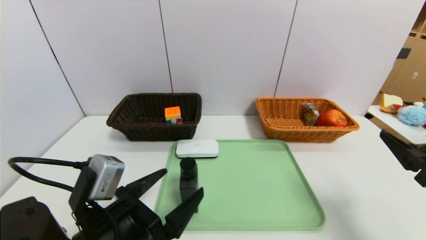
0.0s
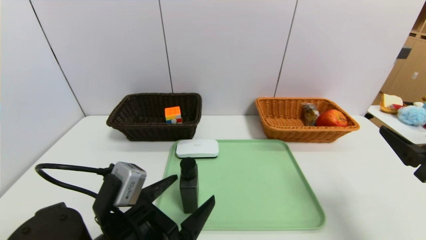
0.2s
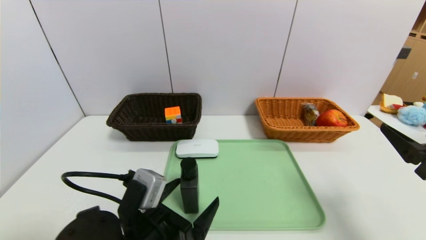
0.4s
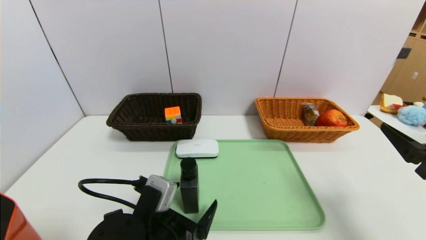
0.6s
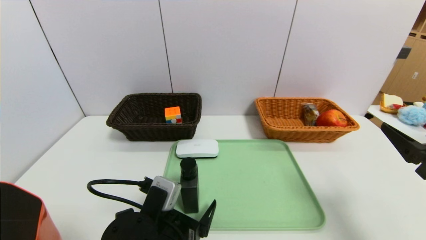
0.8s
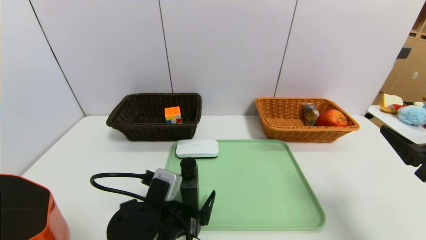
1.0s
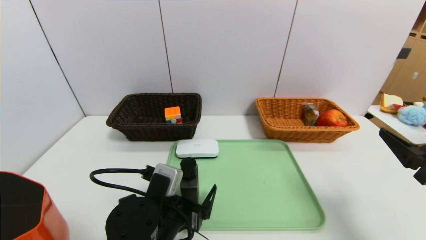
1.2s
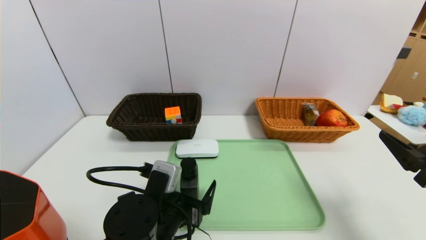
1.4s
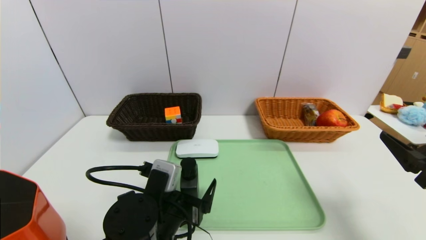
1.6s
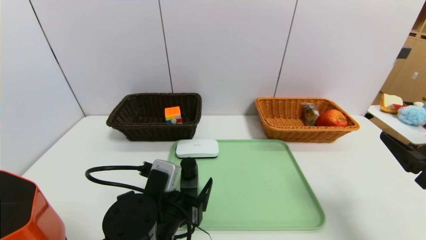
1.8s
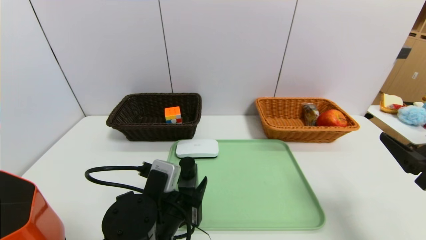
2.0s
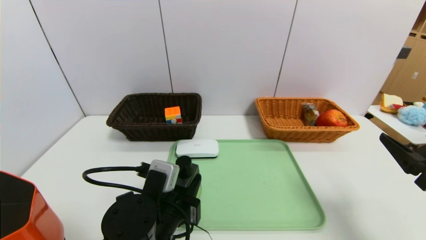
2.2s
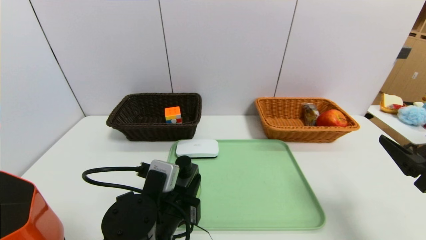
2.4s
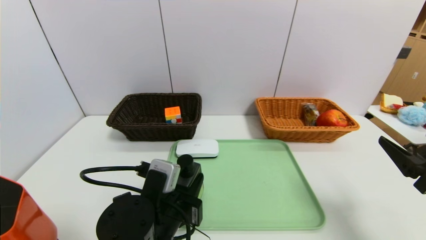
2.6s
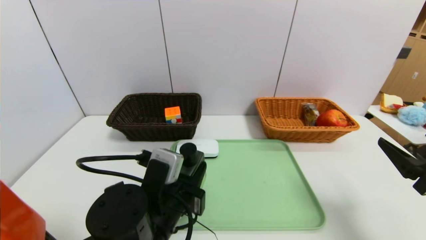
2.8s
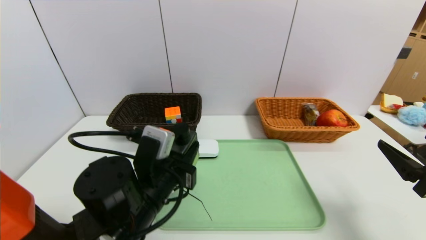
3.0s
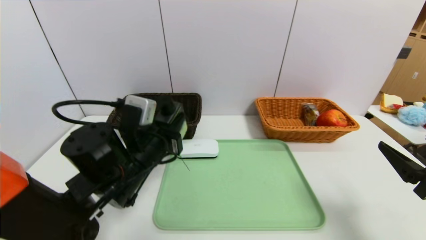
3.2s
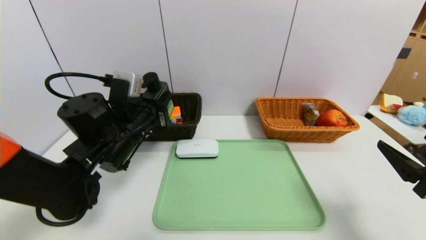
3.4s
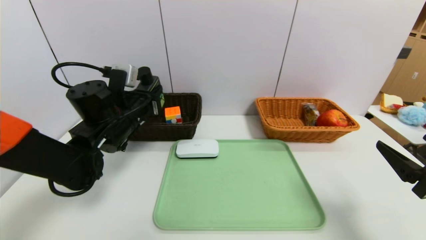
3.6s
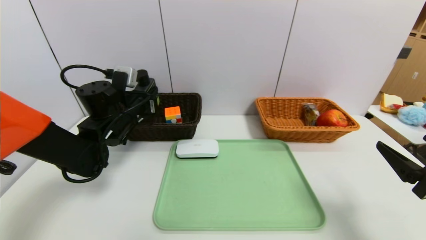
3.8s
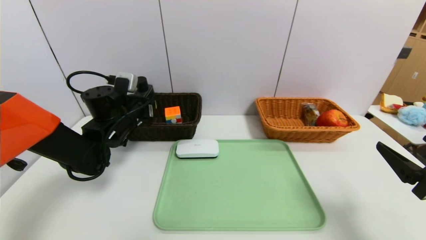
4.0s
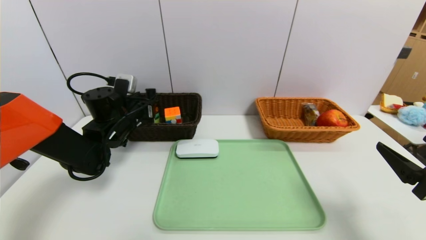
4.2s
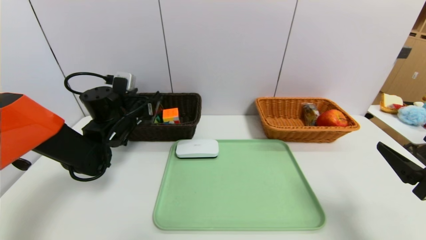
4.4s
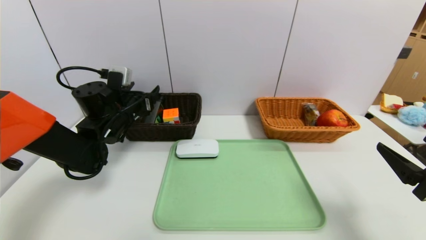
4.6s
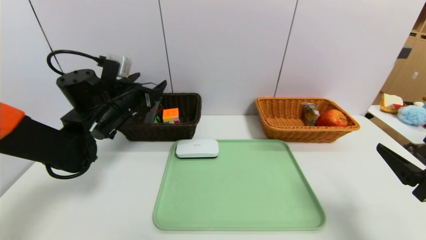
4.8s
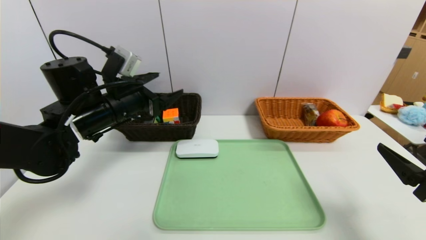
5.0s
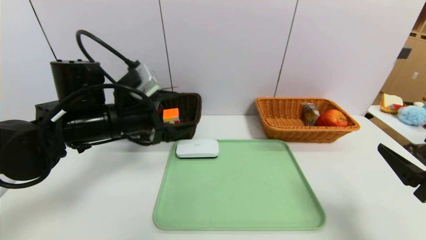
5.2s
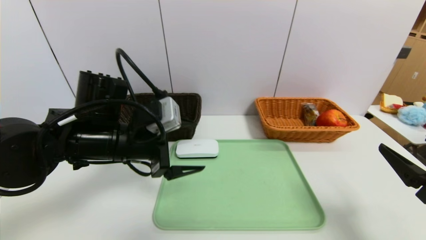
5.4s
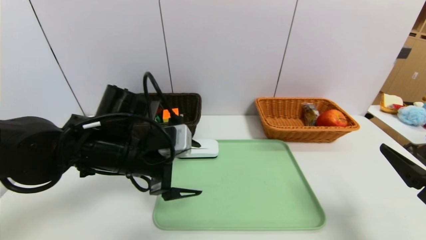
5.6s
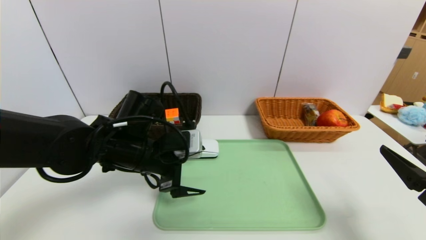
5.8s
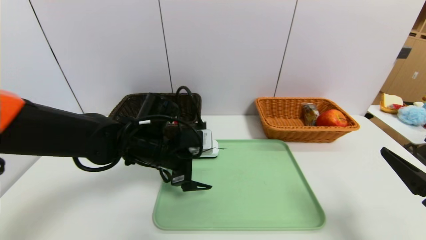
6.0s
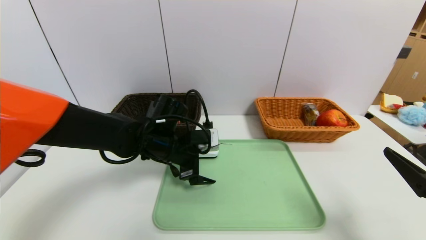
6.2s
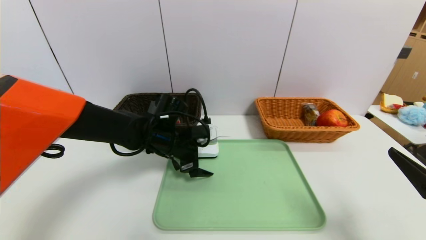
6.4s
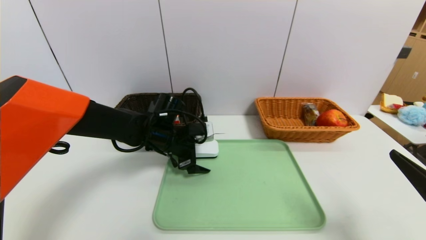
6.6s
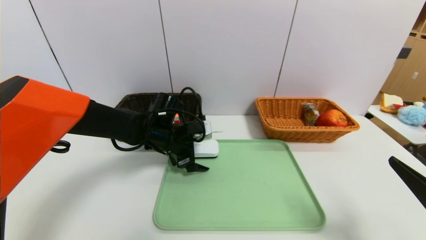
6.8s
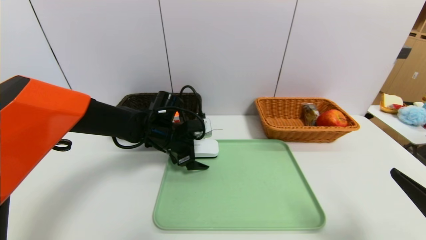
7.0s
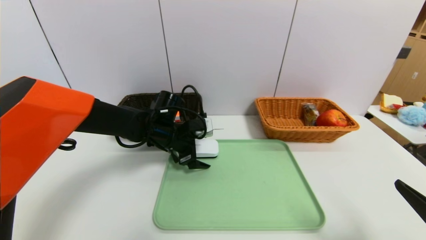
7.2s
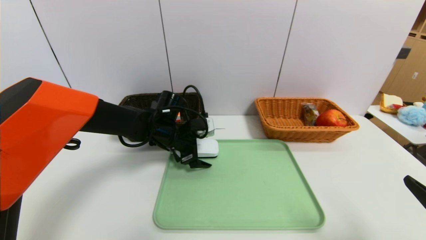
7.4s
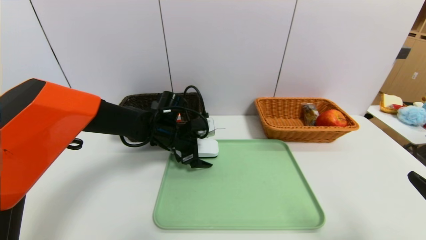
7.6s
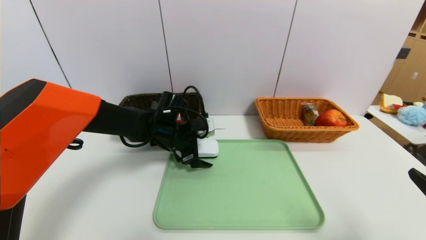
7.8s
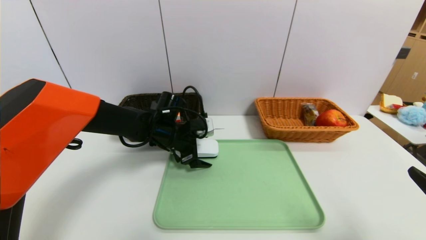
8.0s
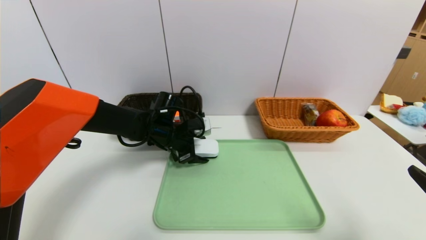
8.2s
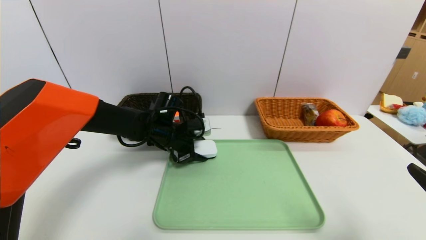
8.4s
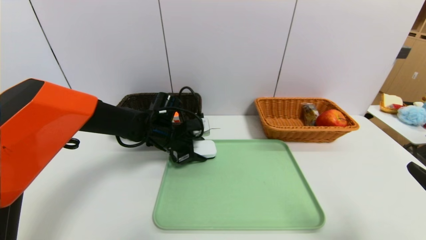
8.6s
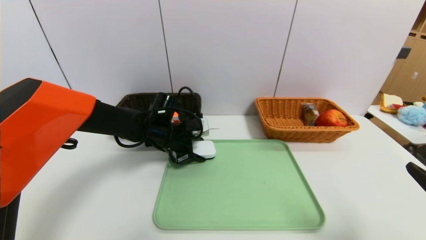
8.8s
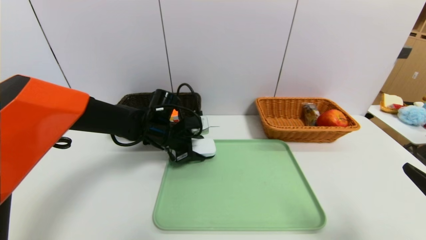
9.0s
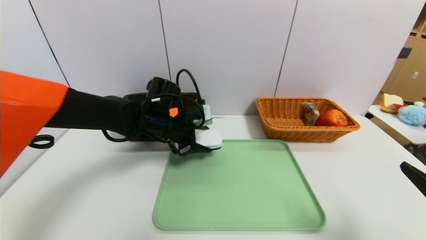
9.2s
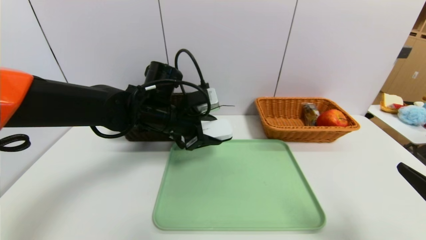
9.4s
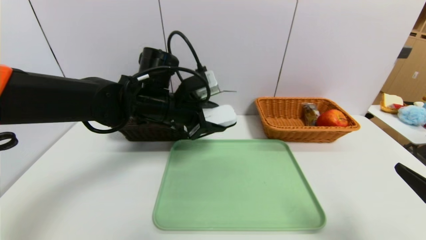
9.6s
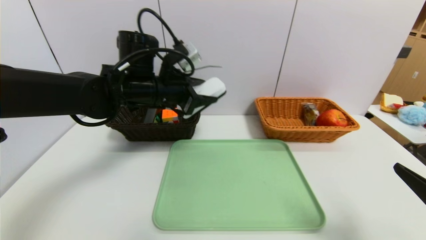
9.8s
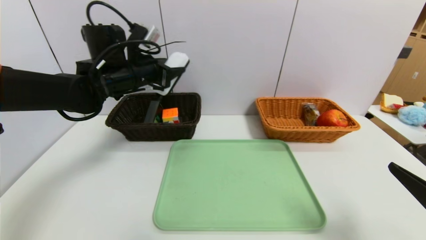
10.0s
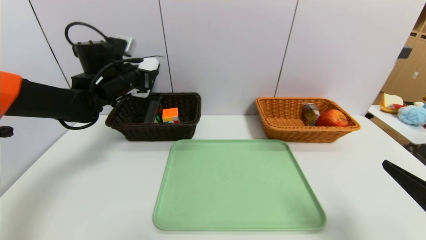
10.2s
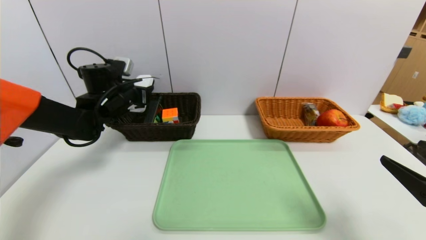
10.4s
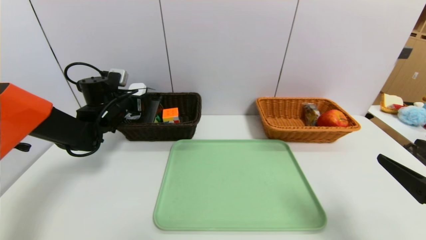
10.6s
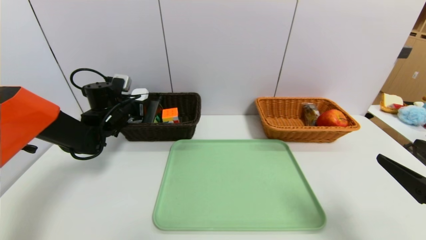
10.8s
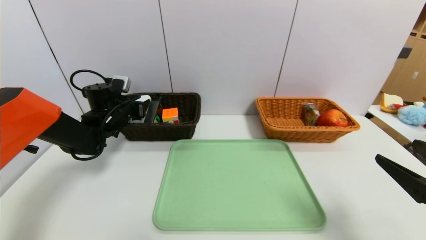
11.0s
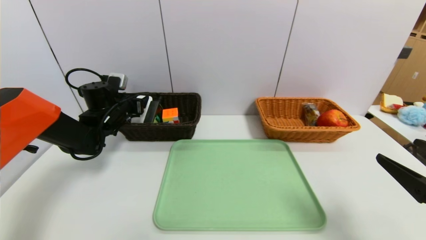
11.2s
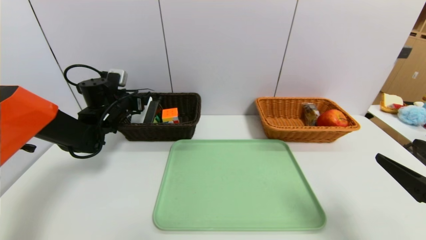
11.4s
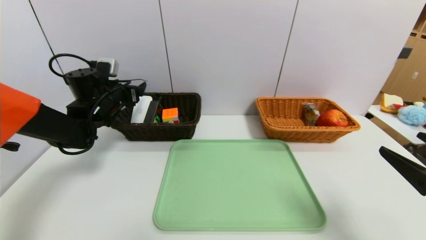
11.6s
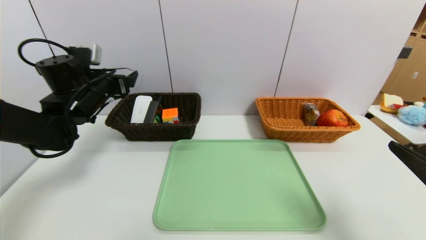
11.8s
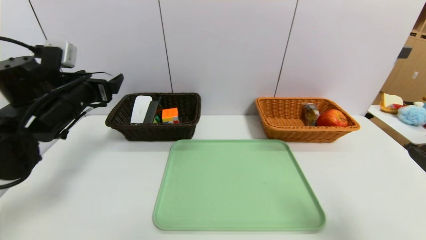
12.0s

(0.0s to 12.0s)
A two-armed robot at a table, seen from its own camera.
Task of the whole recording: place the food in the right basket with the right gripper, and place the non food items in the left basket with the left gripper.
Step, 0.0s - 4.8s: Grasp the hard cleanser and put it in the left basket.
Step, 5.0s - 11.6s: Grasp the soap and put it in the left basket.
0.0s - 1.6s: The left gripper heads downward, covering roughly 5 cm.
1.6s - 3.0s: The left gripper travels upward by about 5 cm, and closes.
3.0s - 4.4s: The left gripper is displaced forward and to the left by roughly 20 cm, and opens its fingers.
4.4s - 6.0s: The left gripper moves to the right and backward, some 15 cm, and opens.
6.0s - 7.6s: The left gripper is displaced forward by approximately 10 cm.
7.6s - 9.0s: The left gripper closes up.
9.0s - 10.4s: The left gripper travels to the left by about 15 cm.
10.4s - 12.0s: The left gripper shifts some 15 cm backward, and opens its fingers.

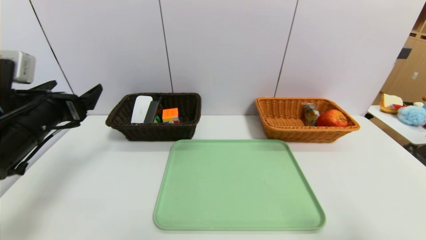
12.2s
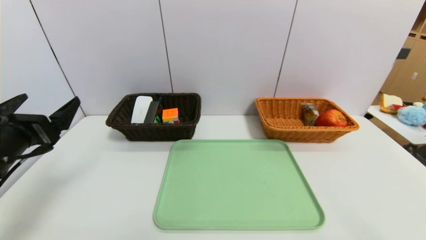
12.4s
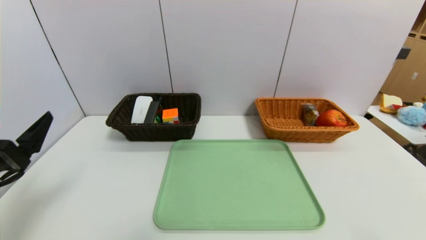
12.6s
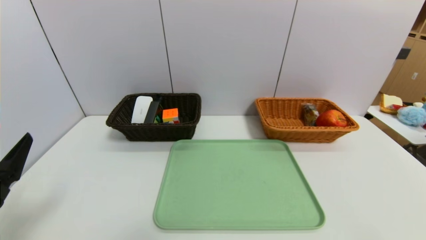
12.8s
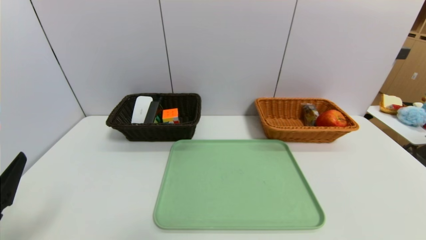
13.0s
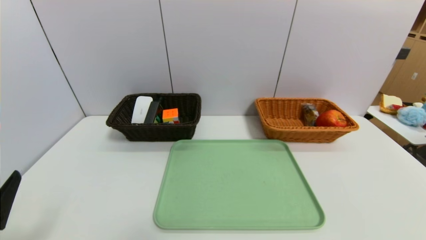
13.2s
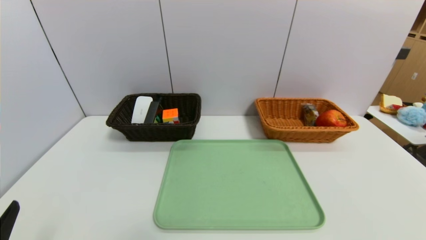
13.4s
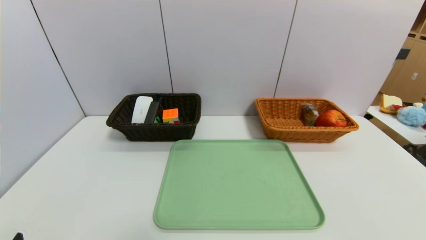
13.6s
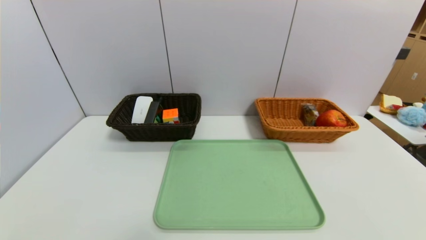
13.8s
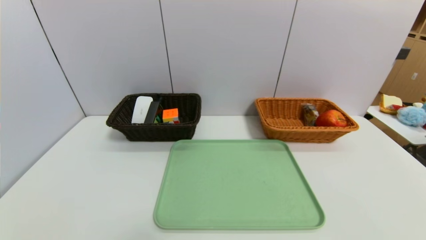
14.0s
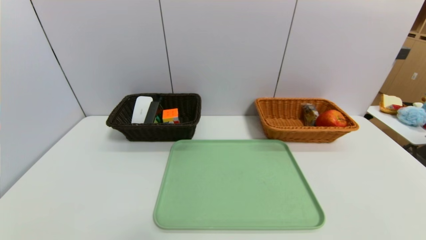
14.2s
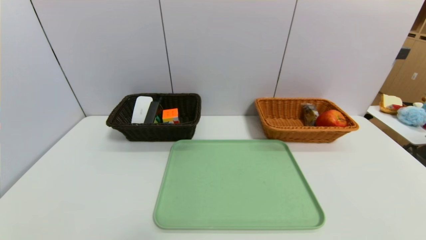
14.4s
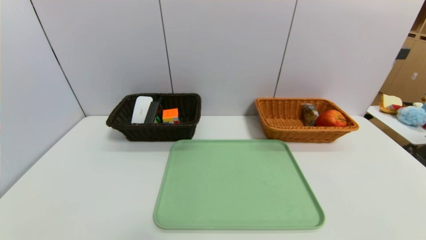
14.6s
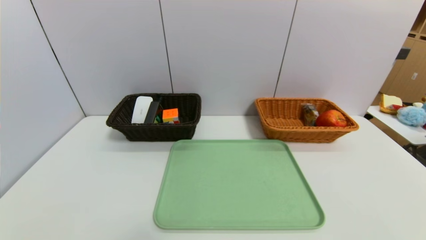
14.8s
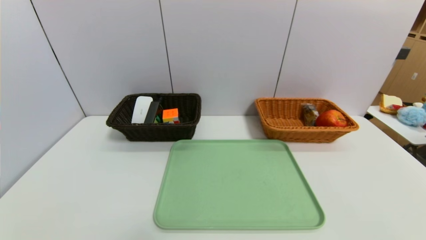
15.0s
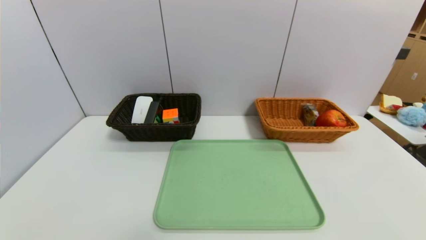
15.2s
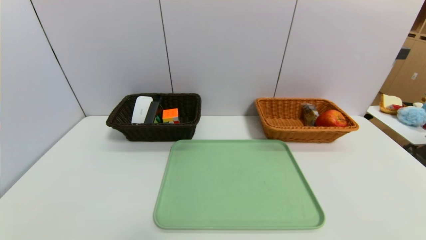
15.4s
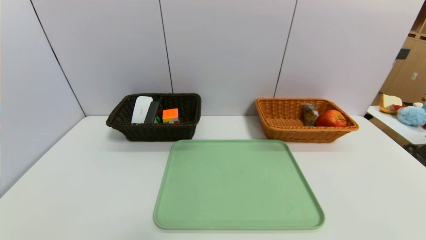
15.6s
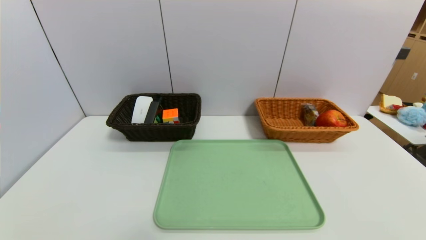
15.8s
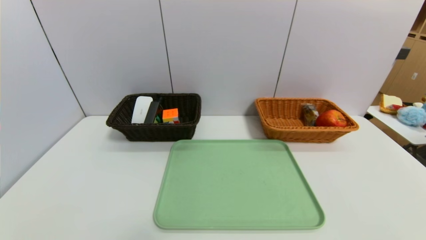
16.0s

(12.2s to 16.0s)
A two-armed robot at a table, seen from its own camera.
Task of the whole recording: place the food in the right basket with the right gripper, and place the non food items in the left basket with the left gripper.
12.2s - 13.4s: The left gripper shifts roughly 25 cm backward and downward; the right gripper goes about 10 cm downward and backward.

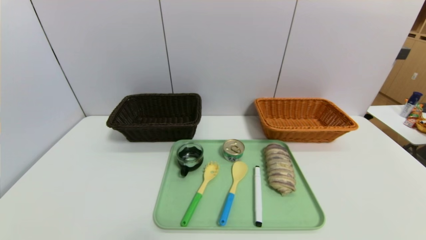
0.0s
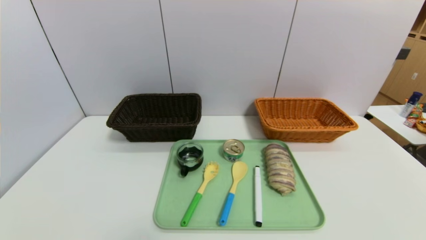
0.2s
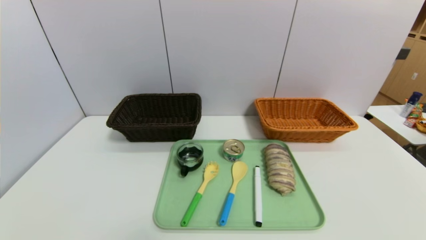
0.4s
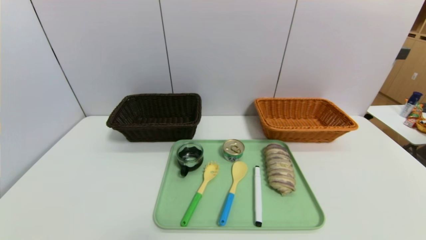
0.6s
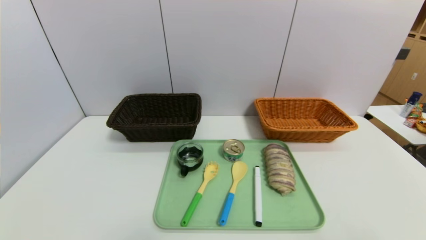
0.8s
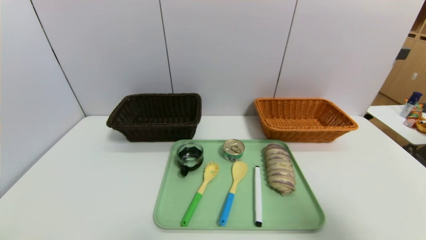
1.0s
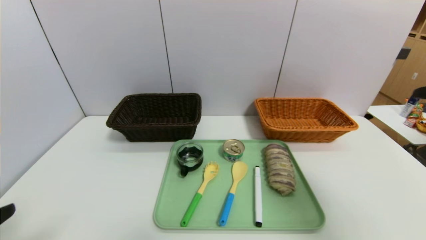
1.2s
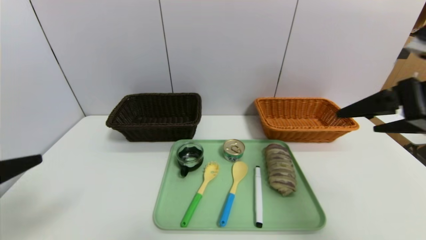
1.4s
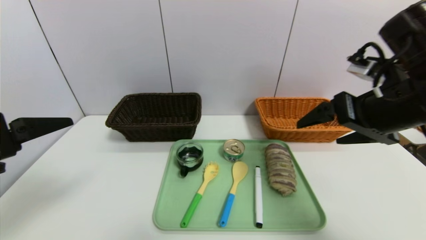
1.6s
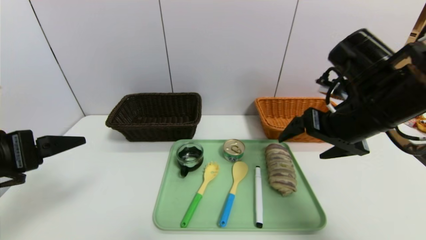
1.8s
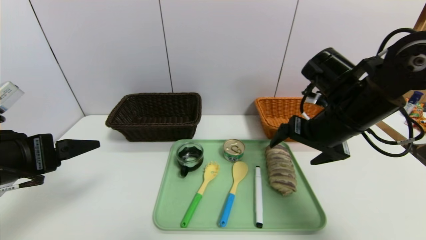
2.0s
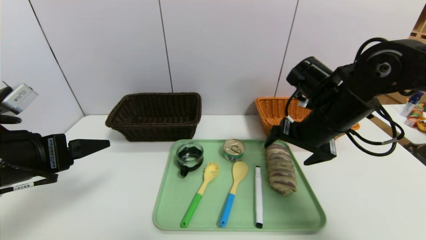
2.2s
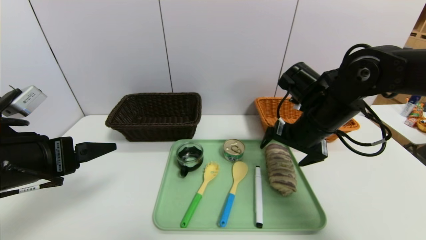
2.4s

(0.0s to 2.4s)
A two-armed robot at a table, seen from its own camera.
Task of the whole recording: place the food in the right basket with the right gripper, and place the non food items in the left basket with the left gripper.
0.0s - 1.2s: The left gripper shifts roughly 20 cm upward, while the right gripper heads upward and forward, covering roughly 30 cm.
1.2s - 2.4s: The left gripper is displaced forward by approximately 15 cm, while the right gripper moves forward, to the left and downward, about 25 cm.
